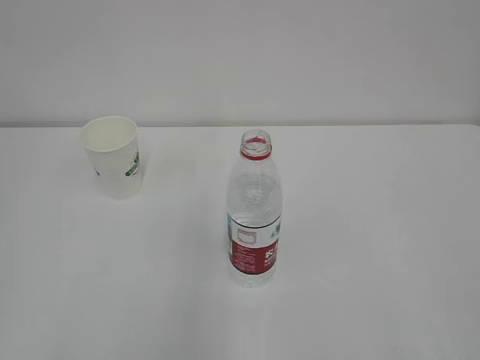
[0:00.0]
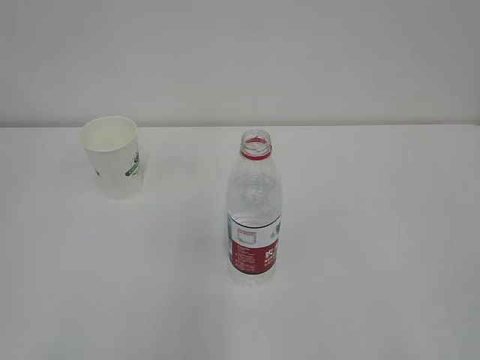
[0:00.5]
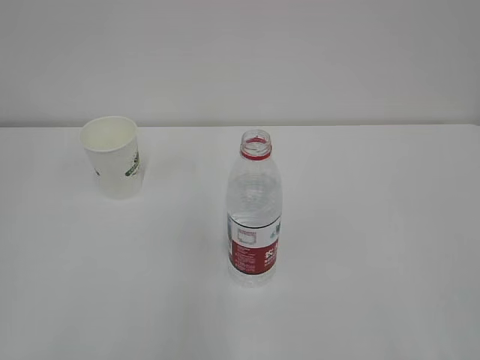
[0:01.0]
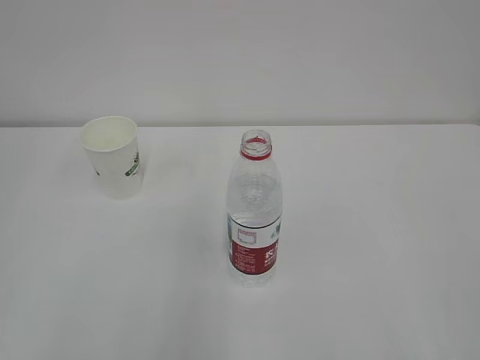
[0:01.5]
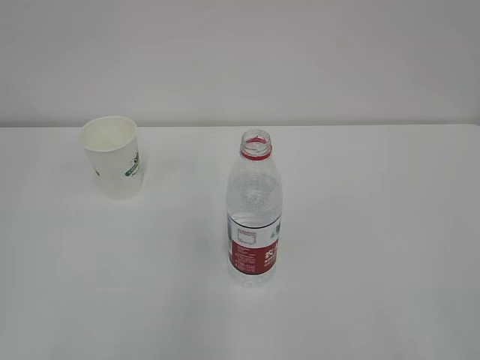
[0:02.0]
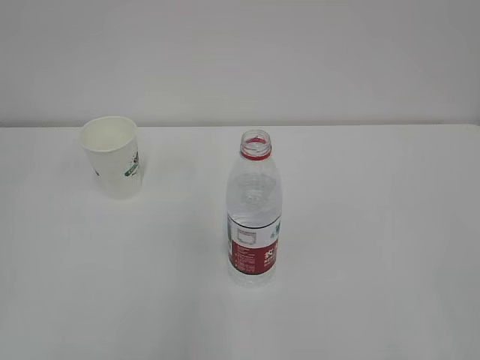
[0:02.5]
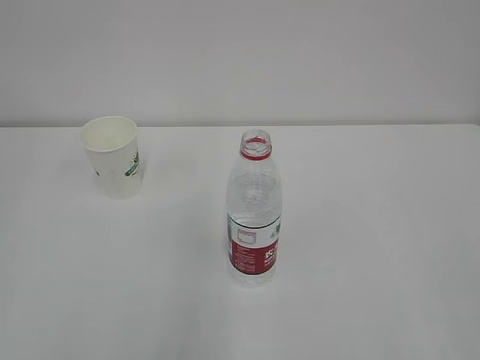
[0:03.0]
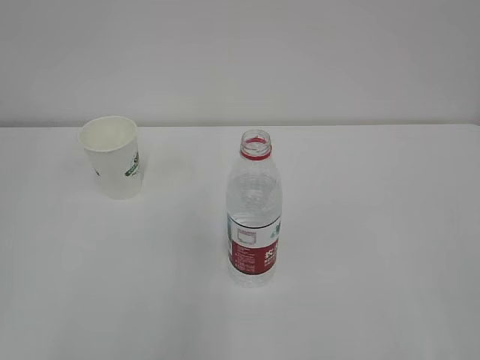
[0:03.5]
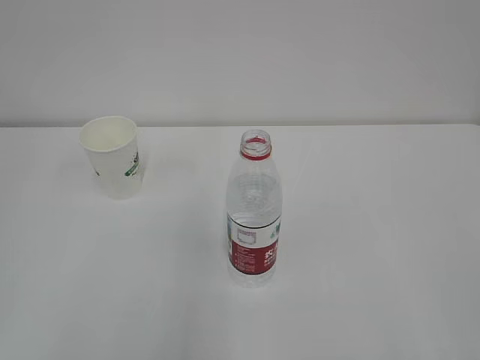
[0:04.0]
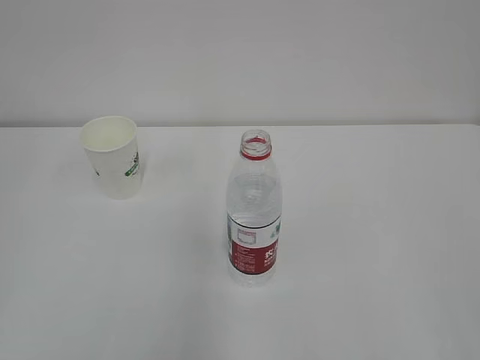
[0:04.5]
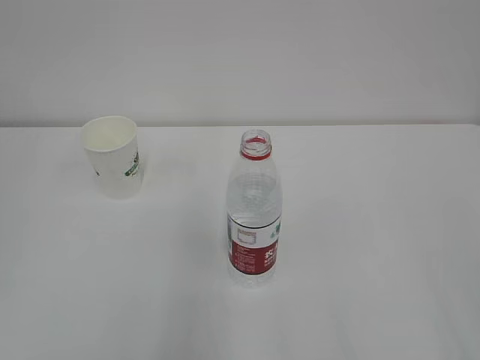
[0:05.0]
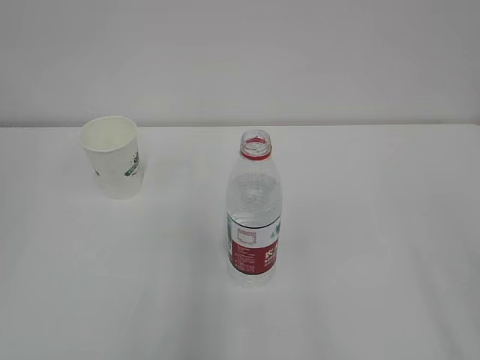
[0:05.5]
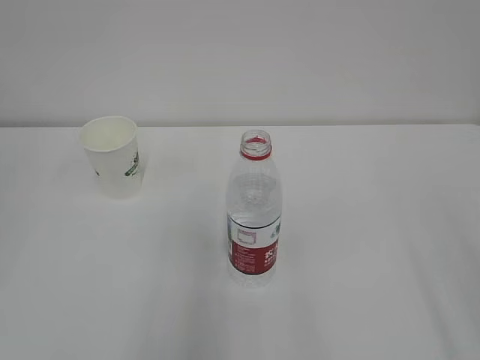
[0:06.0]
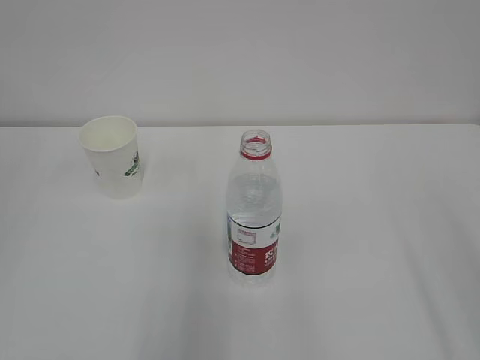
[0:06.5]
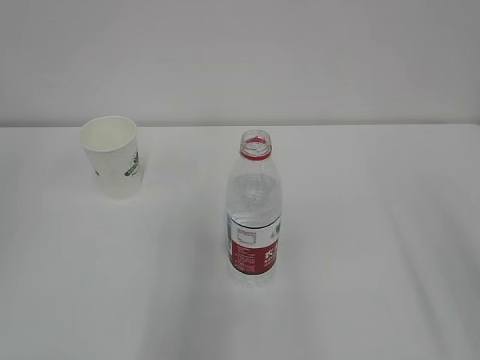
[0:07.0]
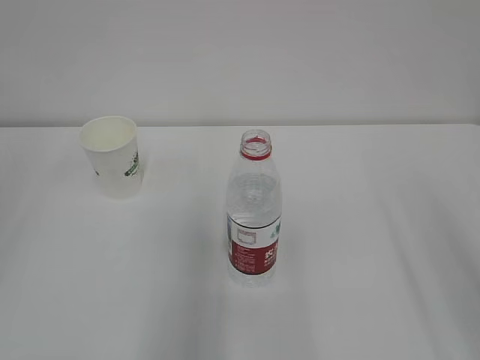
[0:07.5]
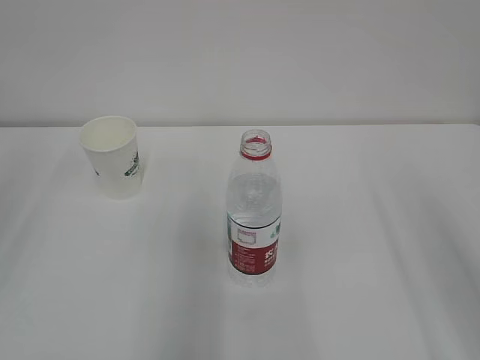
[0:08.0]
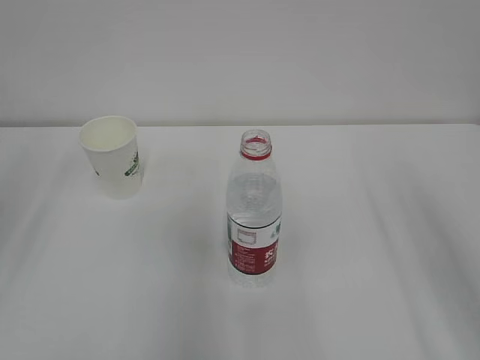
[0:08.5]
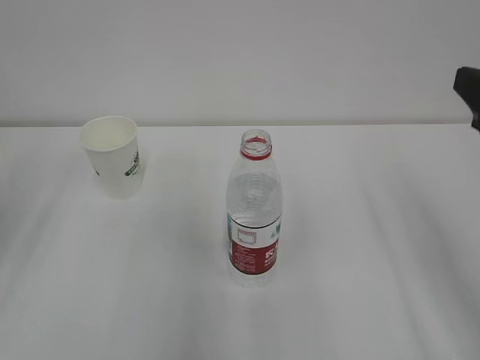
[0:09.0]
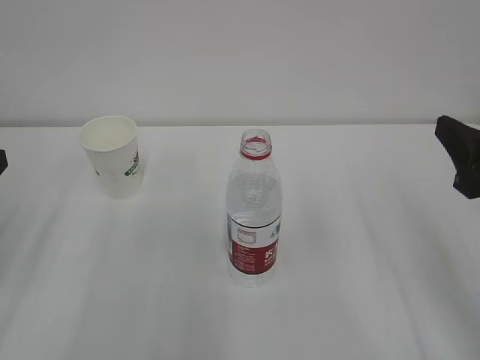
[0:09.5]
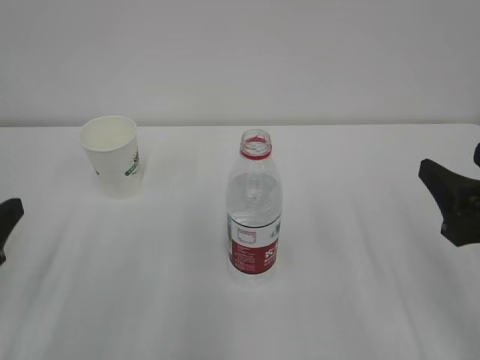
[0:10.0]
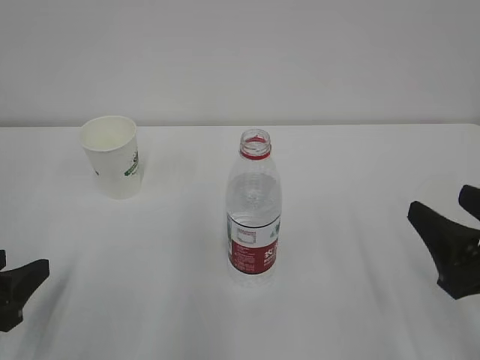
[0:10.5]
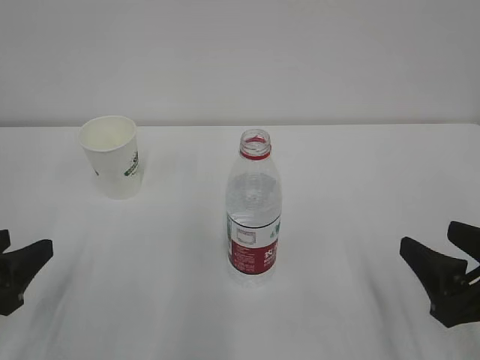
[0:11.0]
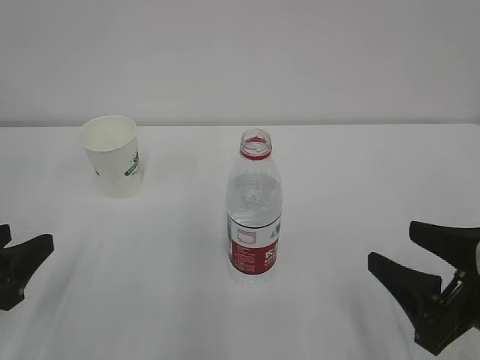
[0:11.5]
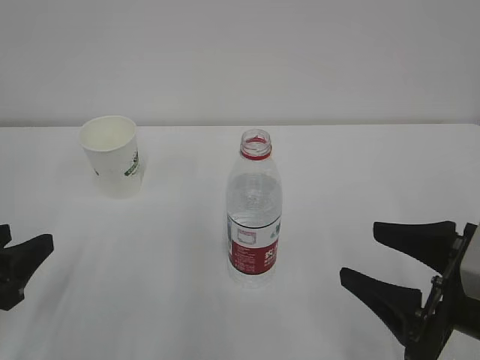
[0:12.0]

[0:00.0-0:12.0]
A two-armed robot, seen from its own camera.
0:02.0 to 0:04.0: Both grippers stay put.
0:08.0 to 0:10.0: The grippers both shift downward by roughly 15 cm.
0:10.0 to 0:12.0: The right gripper moves some 5 cm.

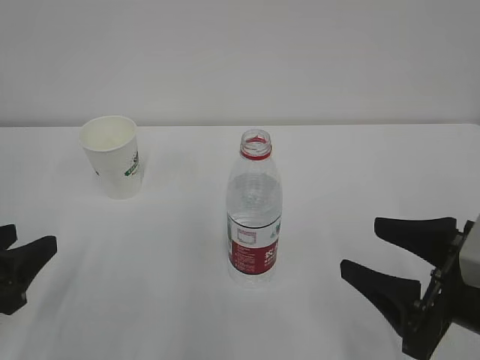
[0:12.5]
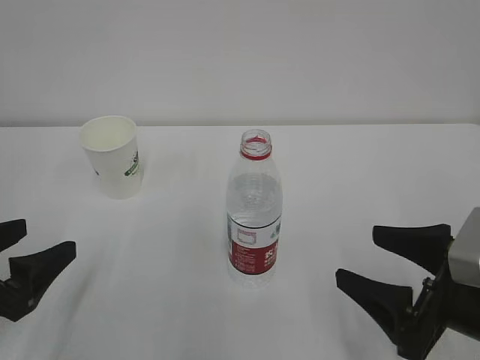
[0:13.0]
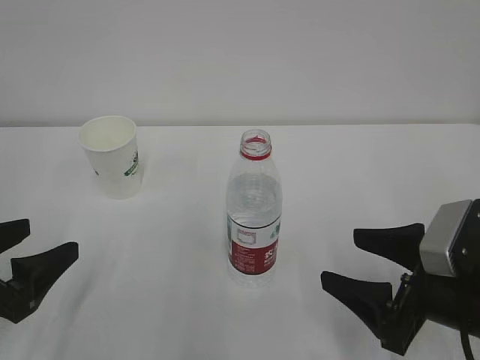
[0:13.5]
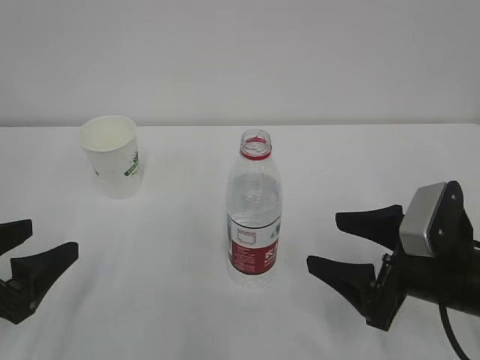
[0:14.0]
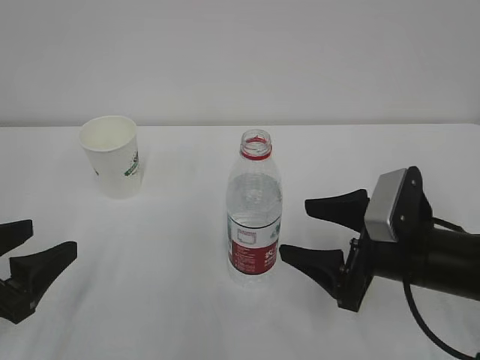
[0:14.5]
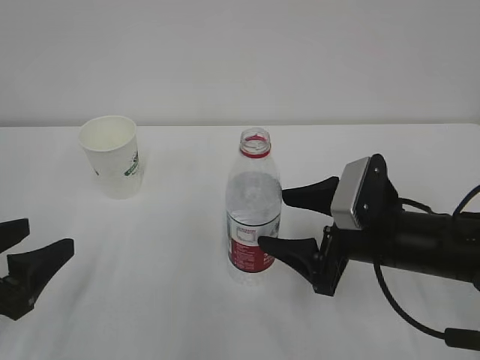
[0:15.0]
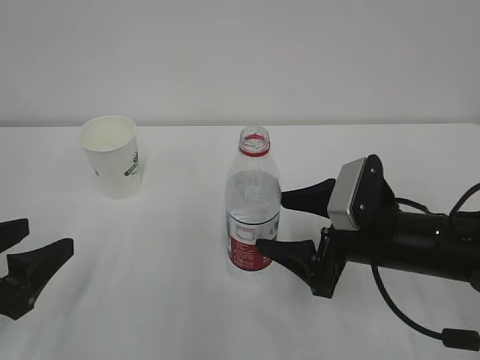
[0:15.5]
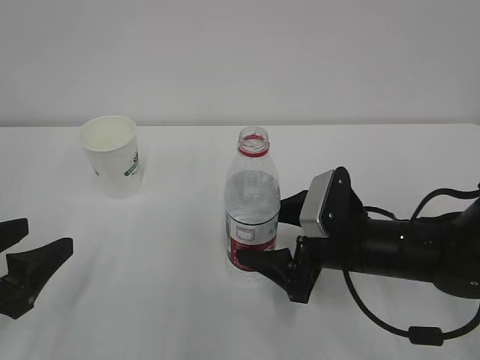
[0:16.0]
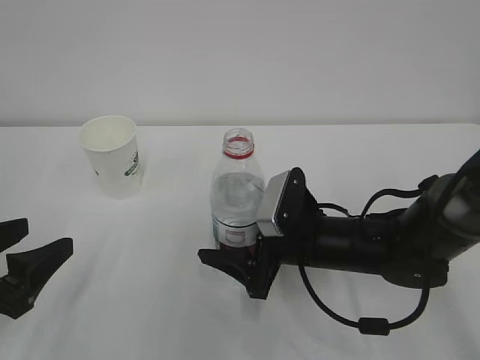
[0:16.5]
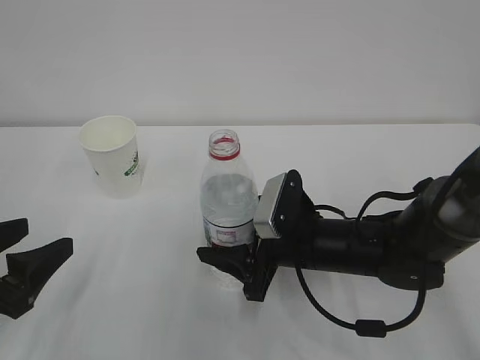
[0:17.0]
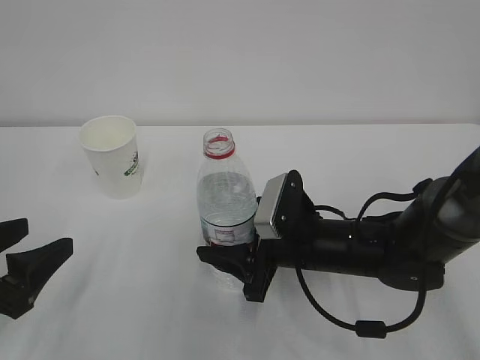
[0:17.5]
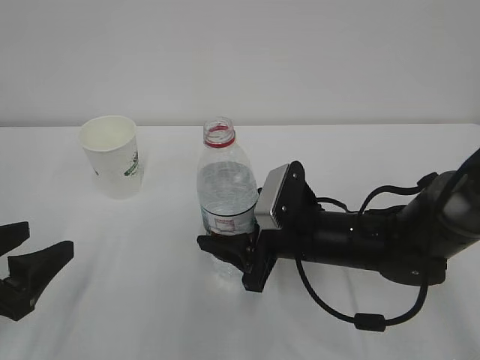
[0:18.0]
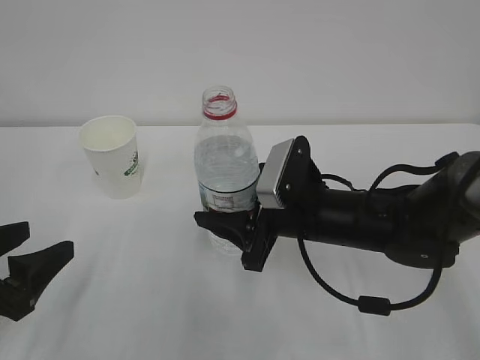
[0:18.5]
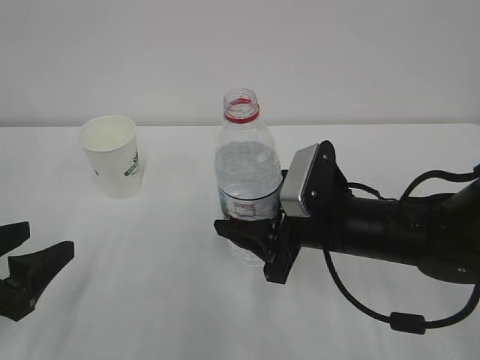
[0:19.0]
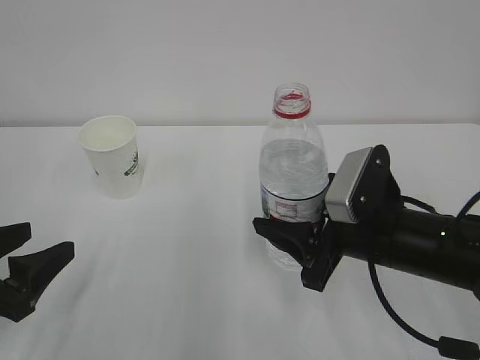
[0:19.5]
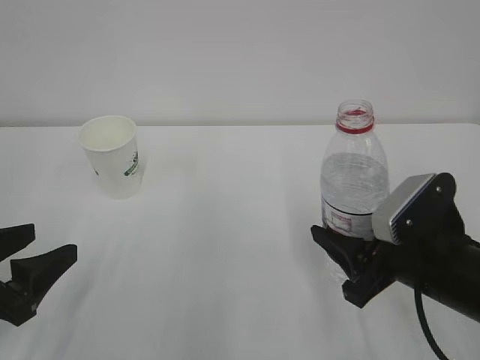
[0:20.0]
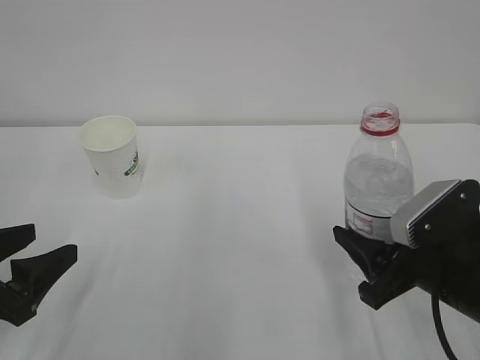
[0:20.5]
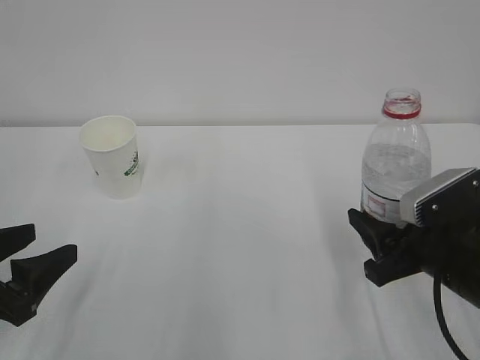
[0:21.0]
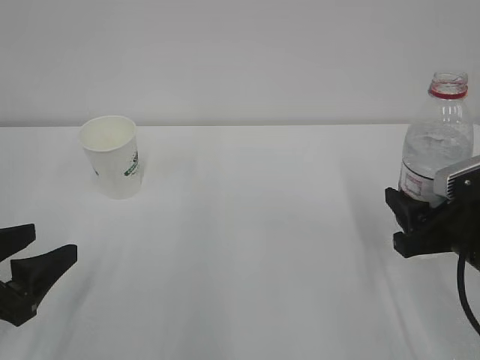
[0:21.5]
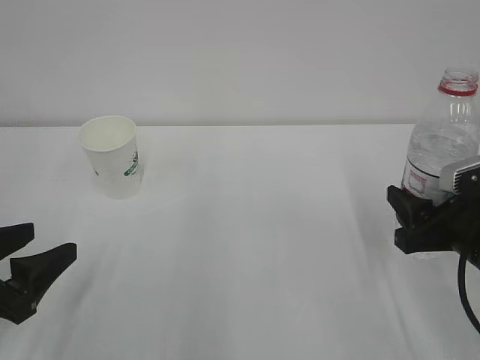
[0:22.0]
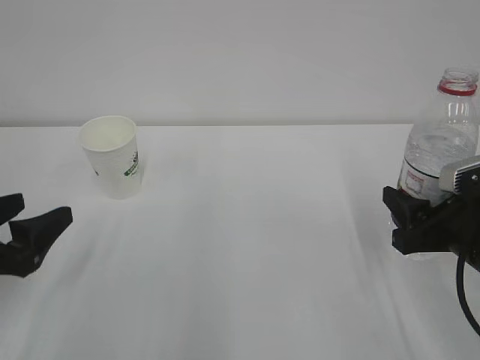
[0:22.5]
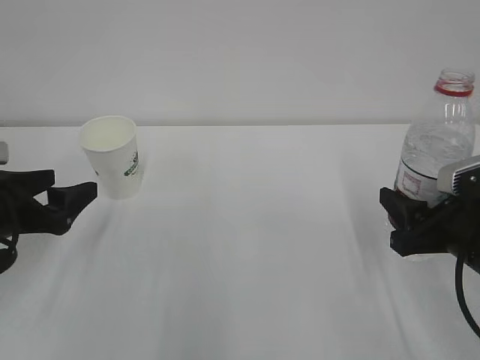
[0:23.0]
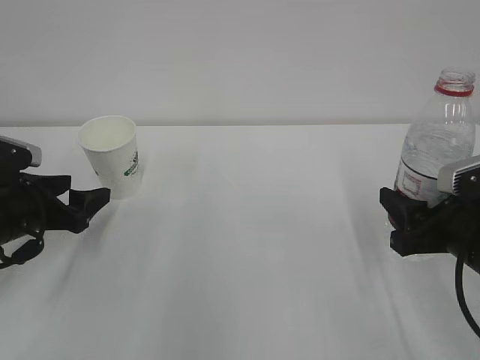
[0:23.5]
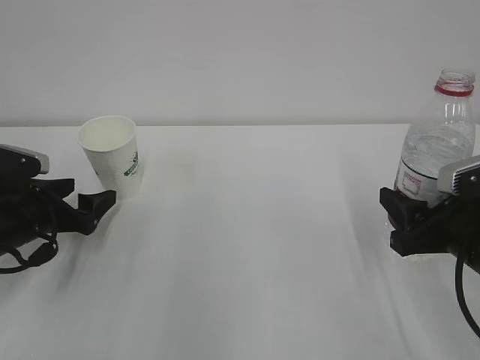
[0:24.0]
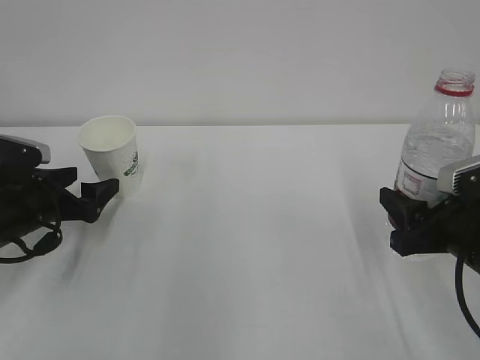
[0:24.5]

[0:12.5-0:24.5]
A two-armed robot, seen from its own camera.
0:12.5 to 0:14.5: The left gripper opens, while the right gripper shifts approximately 10 cm forward.
0:14.5 to 0:16.5: The right gripper goes approximately 10 cm to the left.
0:16.5 to 0:18.5: The right gripper closes.
0:18.5 to 0:20.5: The right gripper heads to the right and backward, covering about 15 cm.
0:20.5 to 0:22.5: The grippers make only small movements.
0:22.5 to 0:24.5: The left gripper heads forward and downward, covering roughly 15 cm.

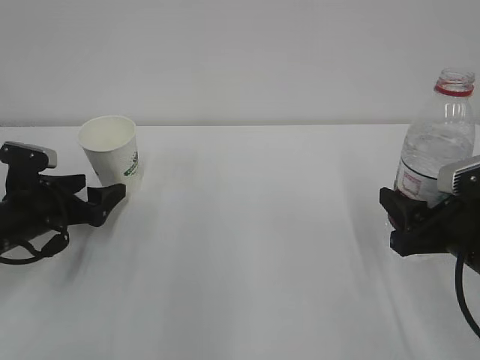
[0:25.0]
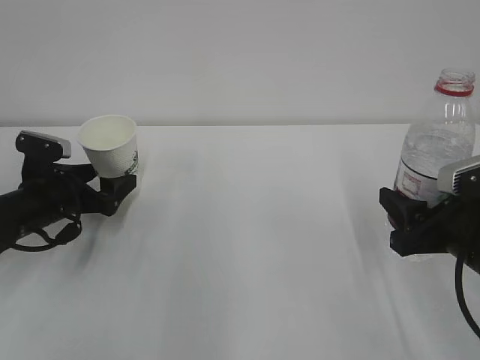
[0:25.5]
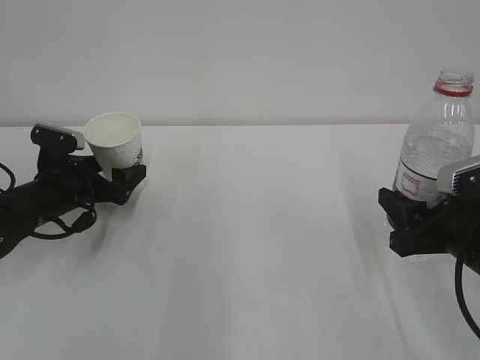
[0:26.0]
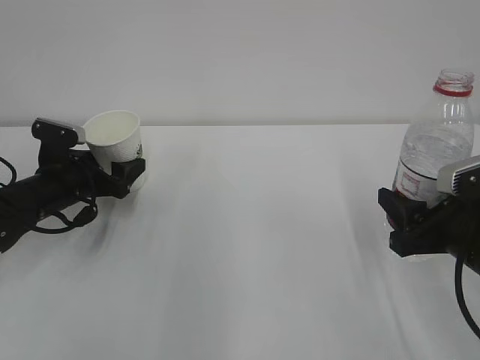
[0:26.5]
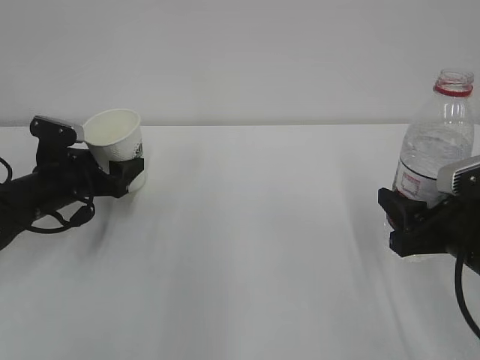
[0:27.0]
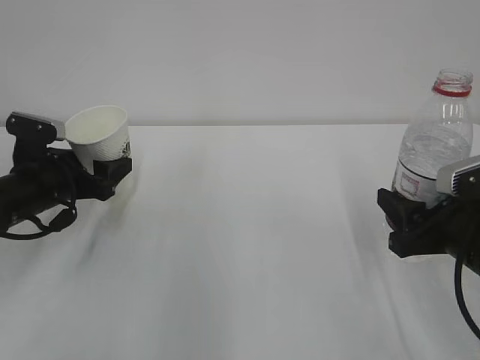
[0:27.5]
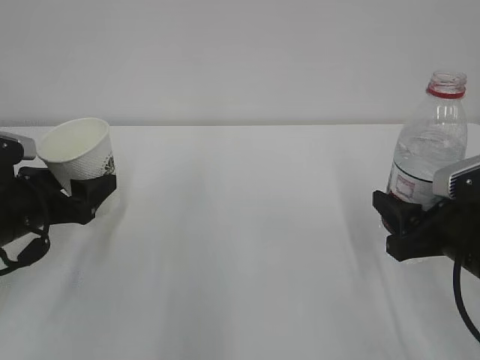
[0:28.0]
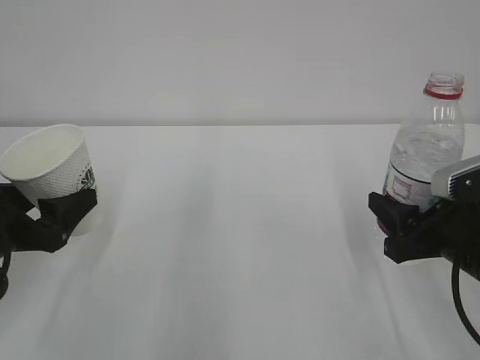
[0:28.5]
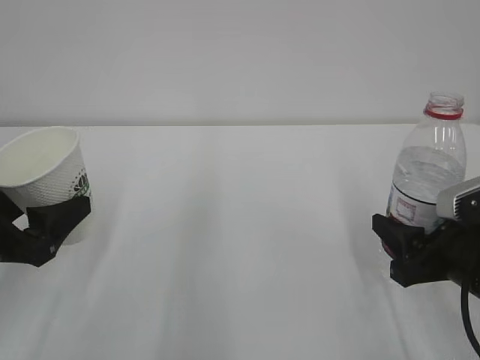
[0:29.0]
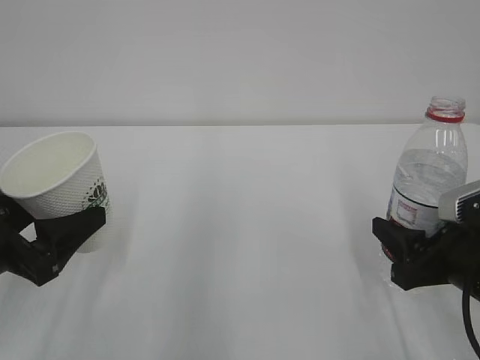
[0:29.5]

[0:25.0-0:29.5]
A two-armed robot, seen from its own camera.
0:25.0 to 0:27.0: The left gripper ends up about 5 cm from where it was, and closes up.
0:27.0 to 0:29.5: The left gripper travels backward and upward by about 20 cm.
